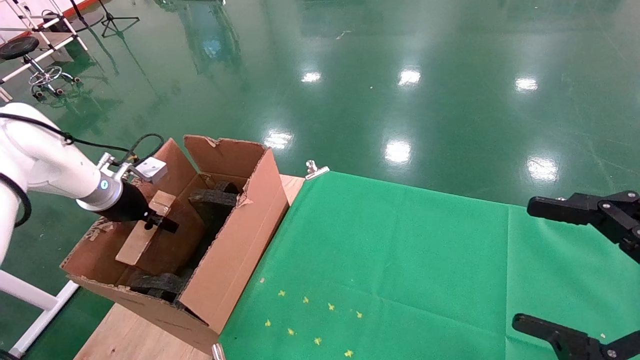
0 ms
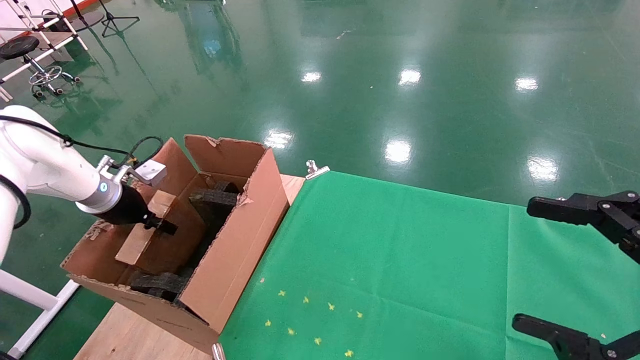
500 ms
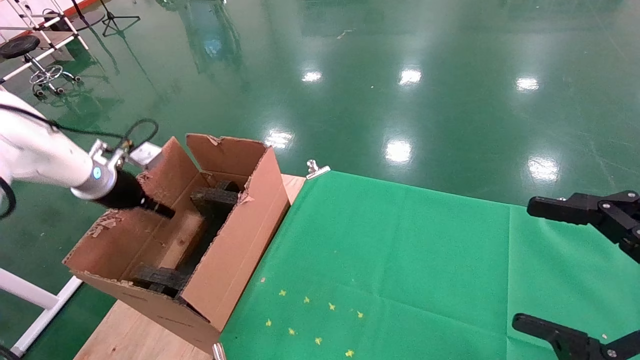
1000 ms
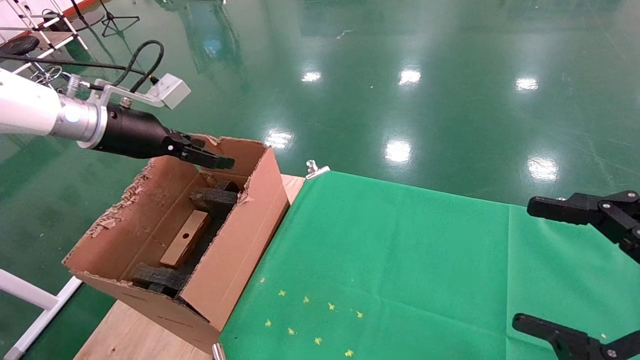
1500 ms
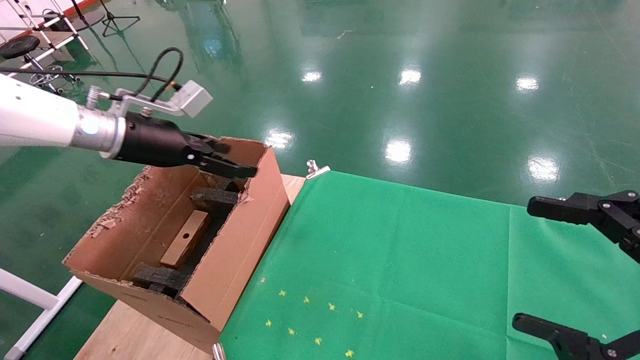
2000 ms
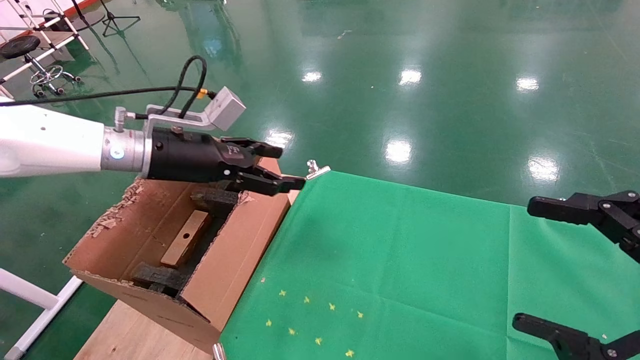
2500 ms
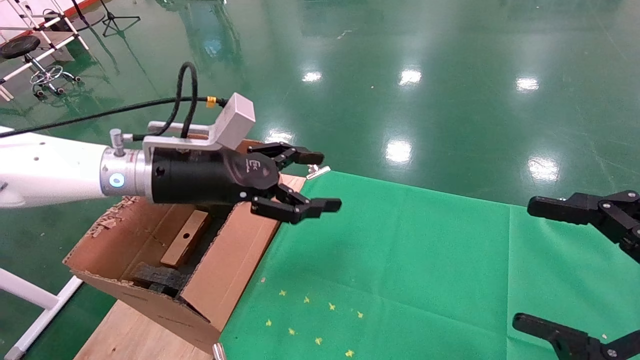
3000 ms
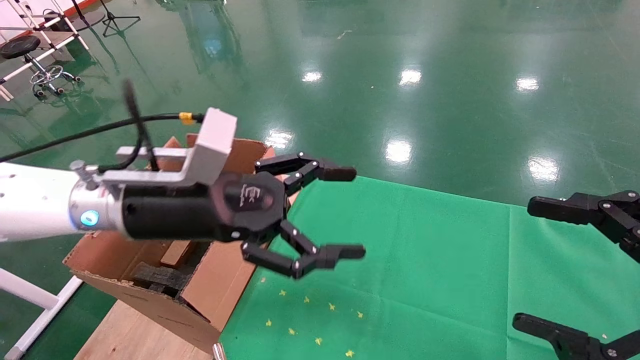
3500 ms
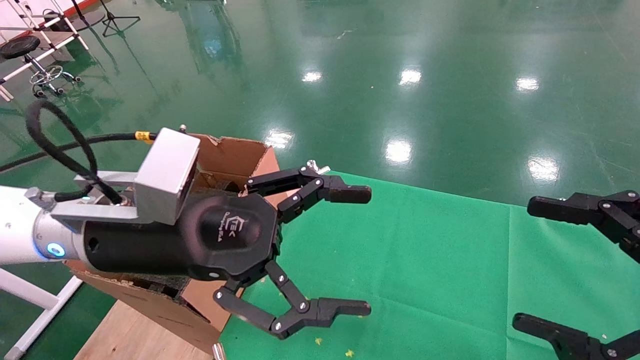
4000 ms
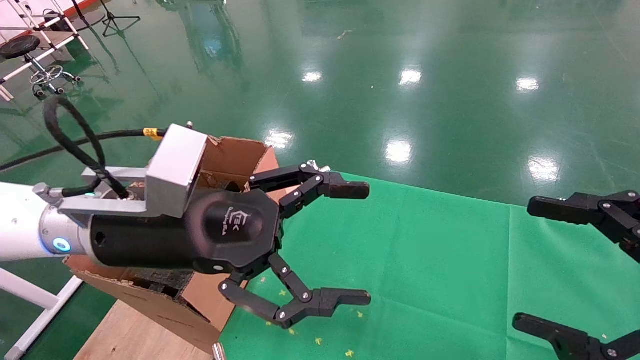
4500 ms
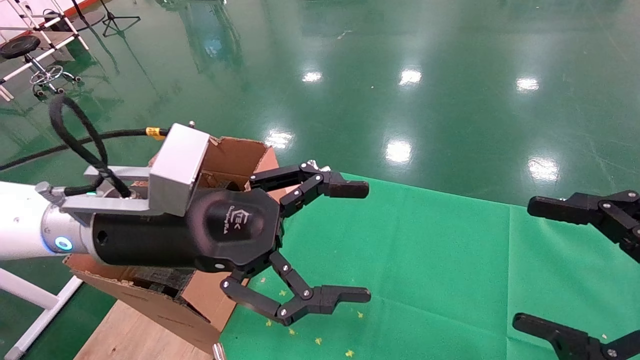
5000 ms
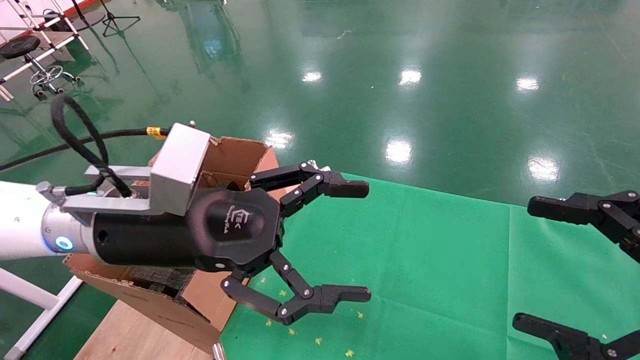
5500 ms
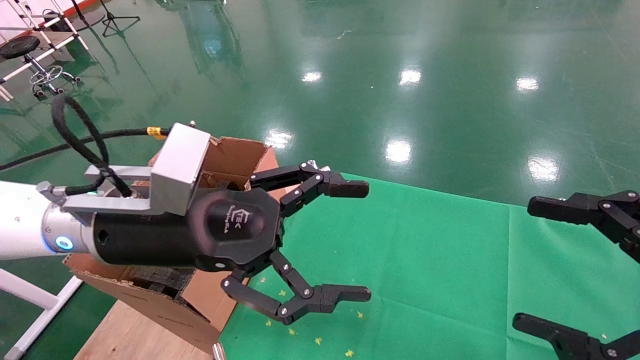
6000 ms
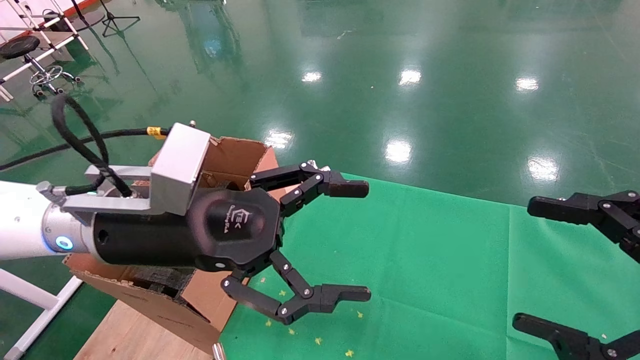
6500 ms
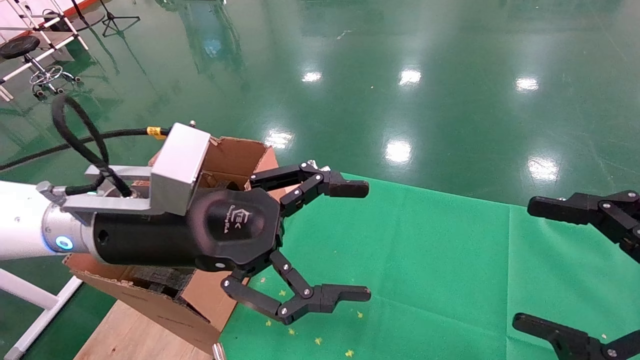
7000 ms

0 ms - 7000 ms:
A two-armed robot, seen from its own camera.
Task of the whole recording: using a robotic arm to pick up a cardboard box and palace it the carton.
0 ms - 2000 ms: The left gripper is displaced upward and to the right by about 15 cm, and opens its fingers.
2000 ms - 3500 ms: The left gripper goes approximately 20 cm to the right and backward.
3500 ms - 5000 ms: The grippers make only small movements.
5000 ms - 7000 ms: Both grippers stay put.

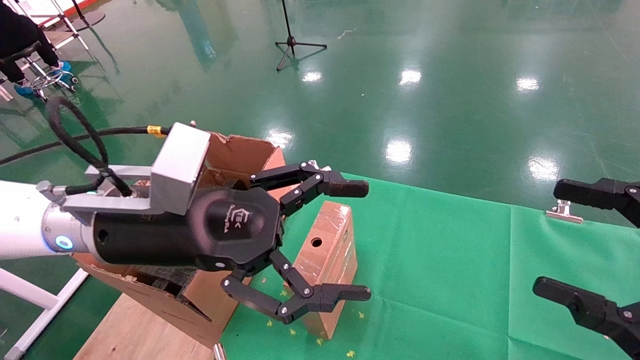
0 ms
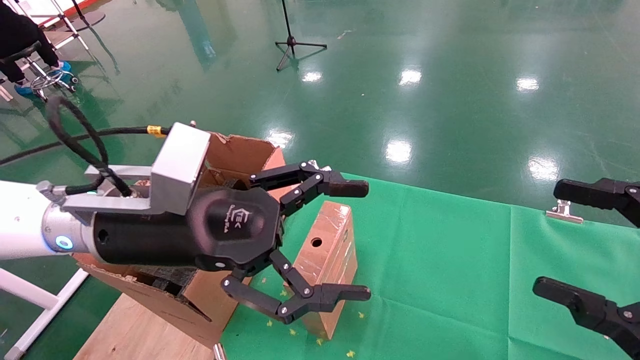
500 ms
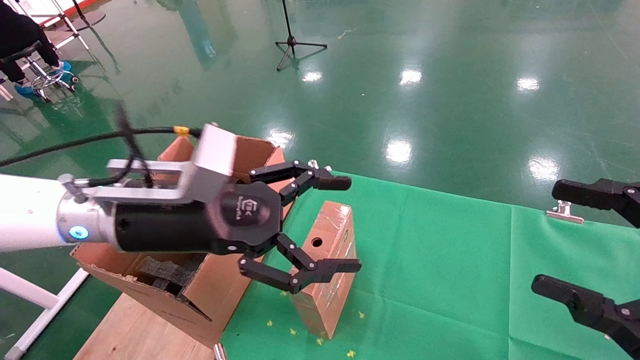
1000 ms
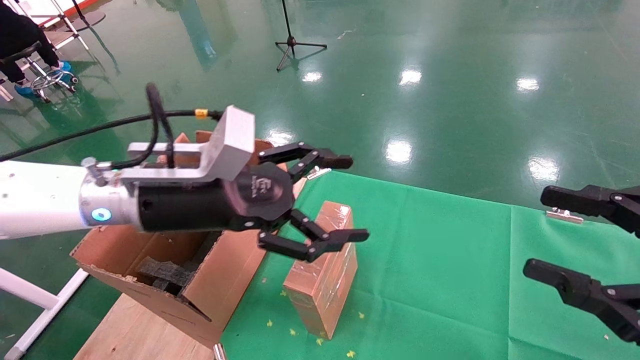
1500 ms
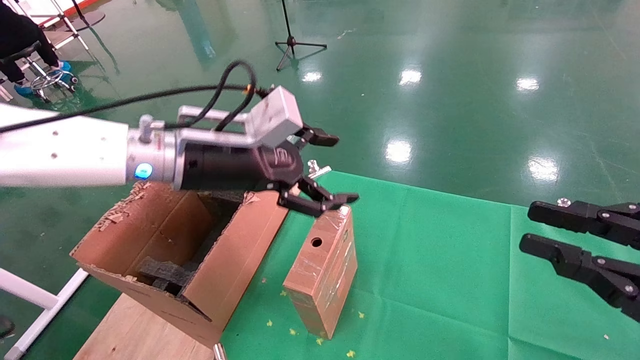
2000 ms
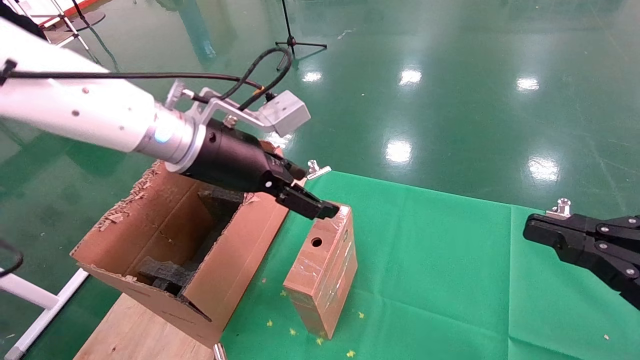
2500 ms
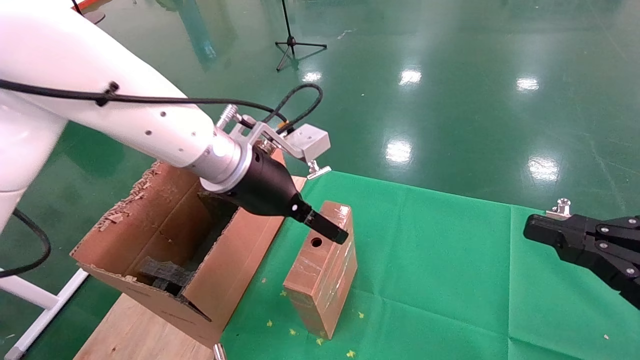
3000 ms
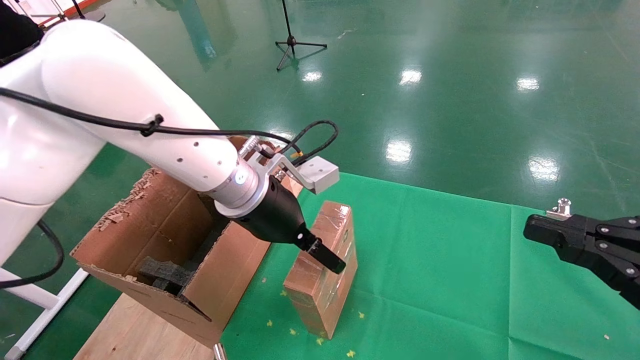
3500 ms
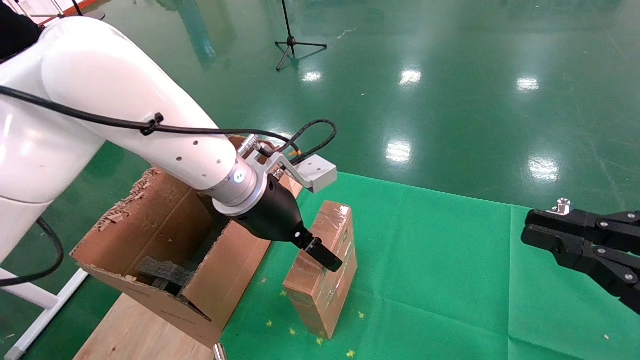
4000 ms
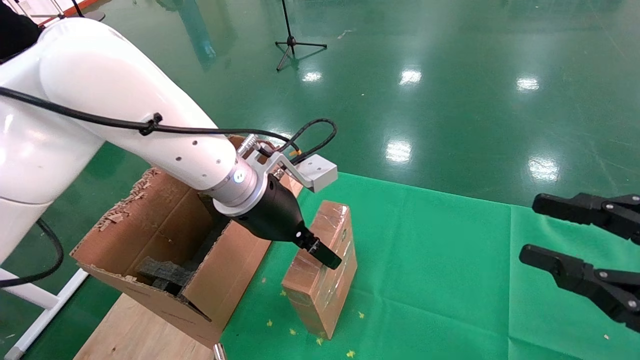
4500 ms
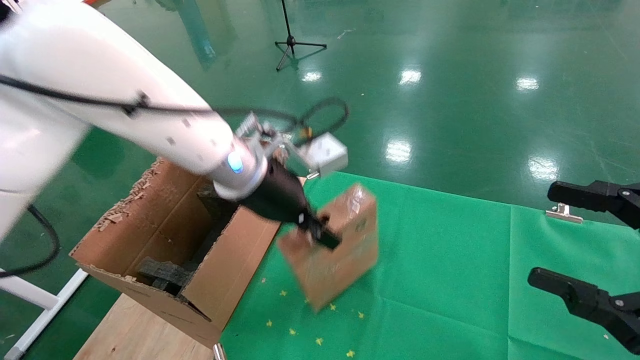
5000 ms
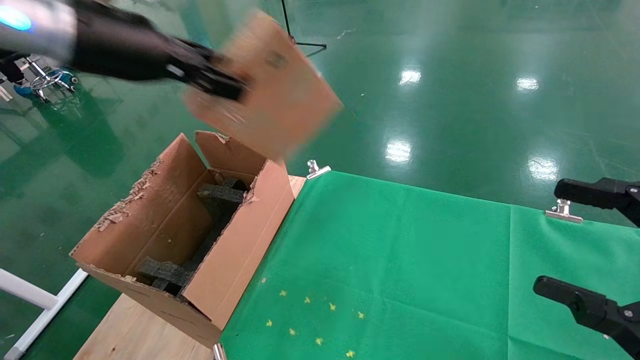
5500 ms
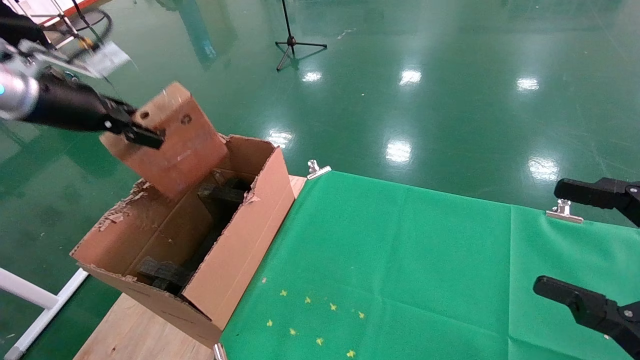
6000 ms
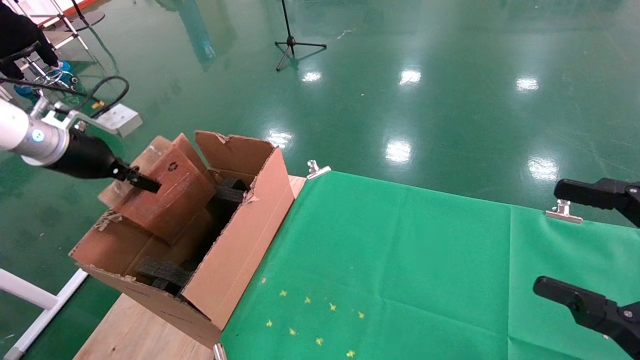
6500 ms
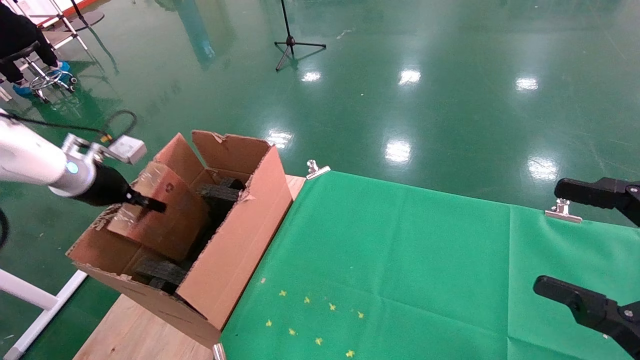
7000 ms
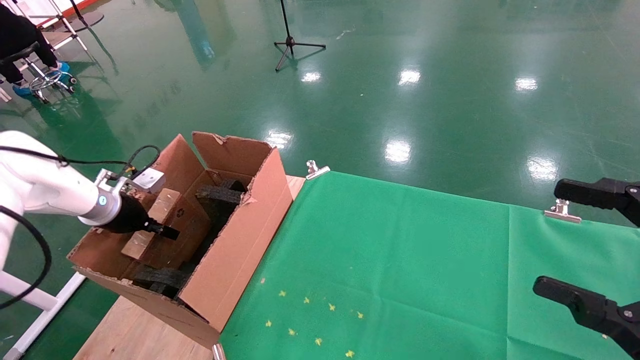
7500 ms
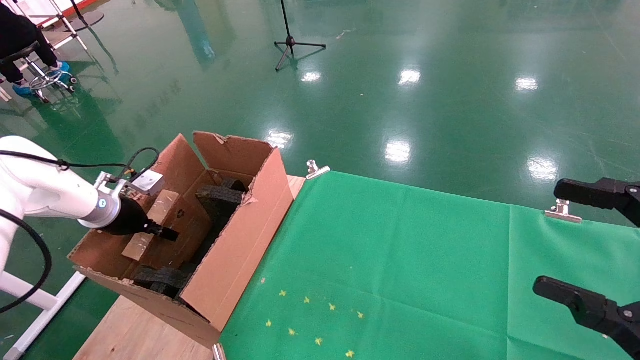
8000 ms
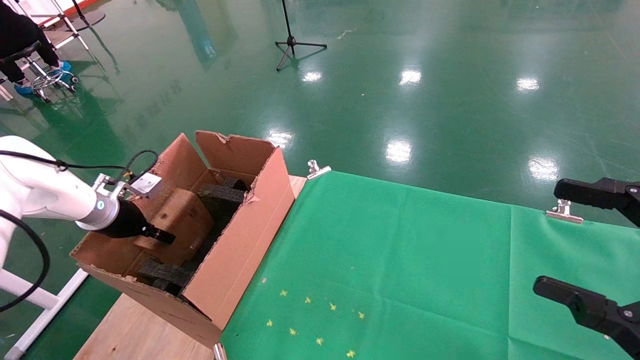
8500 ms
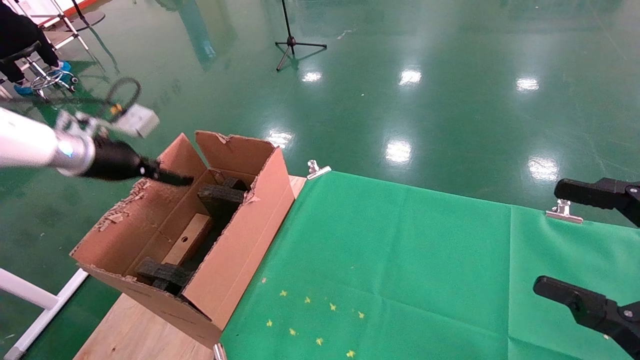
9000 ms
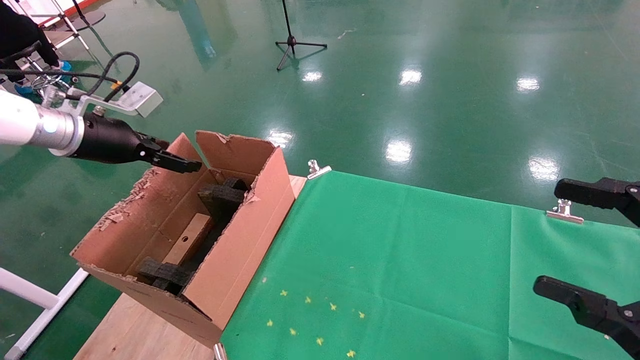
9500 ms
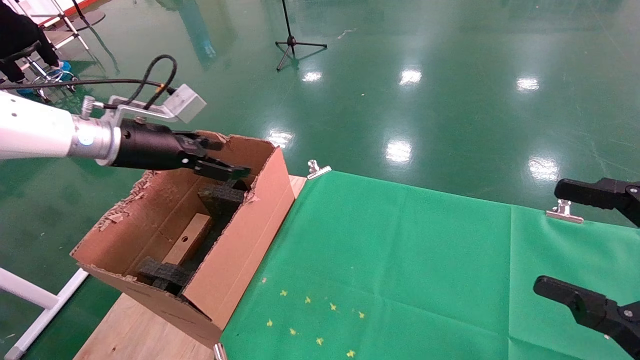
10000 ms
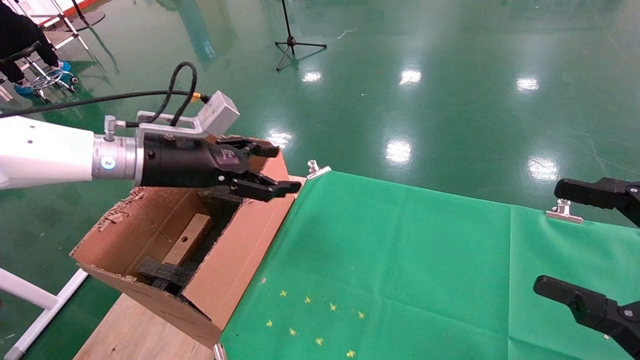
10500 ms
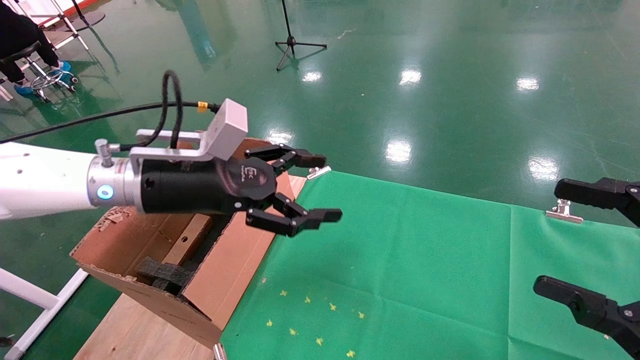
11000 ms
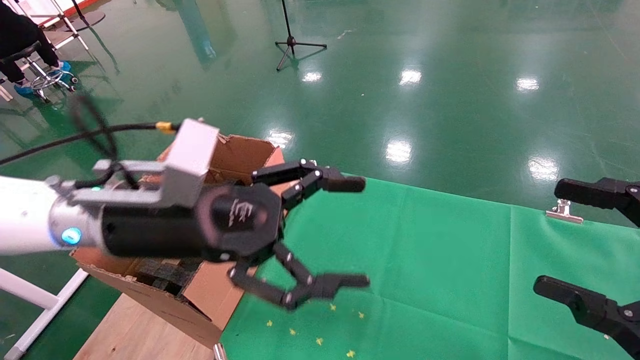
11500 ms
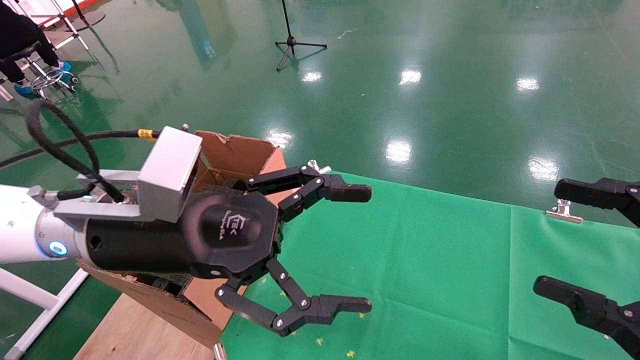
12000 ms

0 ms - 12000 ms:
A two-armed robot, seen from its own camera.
Task of the whole recording: using a robotic arm to pick up a cardboard box and palace it the carton.
Step, 1500 ms - 4500 ms: Pick up the mouse and the power cord paper box.
Step, 5000 ms - 8500 ms: Place the mouse and the power cord paper box into the container.
0 ms - 2000 ms: The left gripper goes about 10 cm forward, while the right gripper closes up.
2000 ms - 4000 ms: The left gripper is displaced to the right by some 5 cm.
4000 ms - 6000 ms: The left gripper goes approximately 30 cm to the left, and closes. Meanwhile the right gripper opens its fingers.
6000 ms - 8000 ms: The left gripper goes some 20 cm downward.
8000 ms - 10000 ms: The left gripper shifts some 15 cm upward and to the right, and opens.
10000 ms - 12000 ms: The left gripper moves to the right and backward, roughly 20 cm.

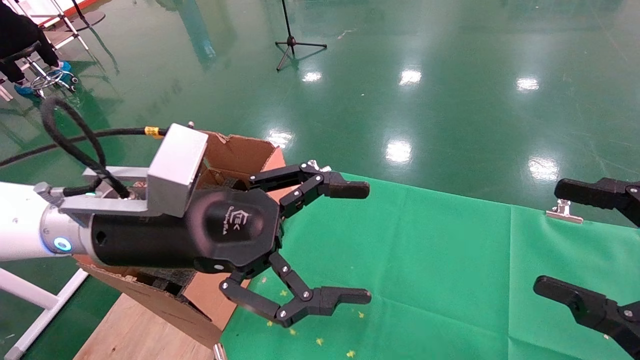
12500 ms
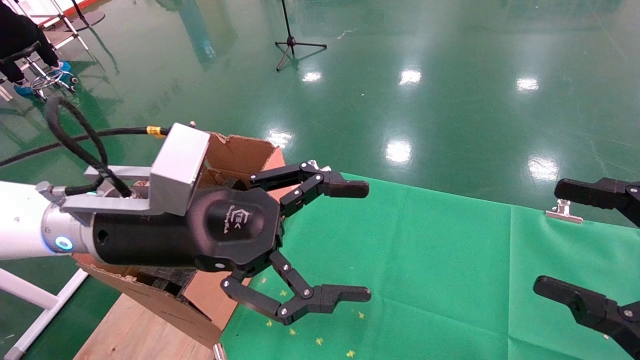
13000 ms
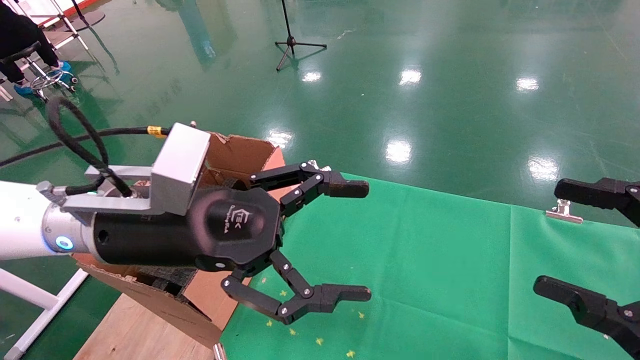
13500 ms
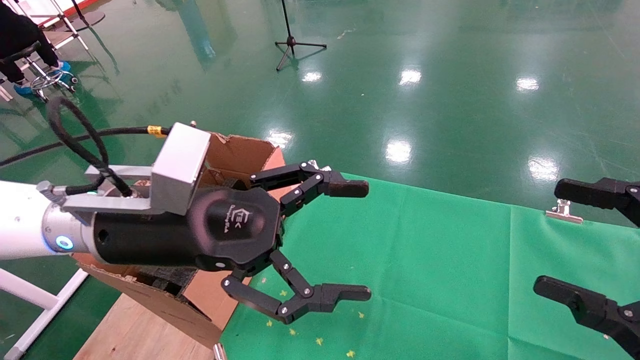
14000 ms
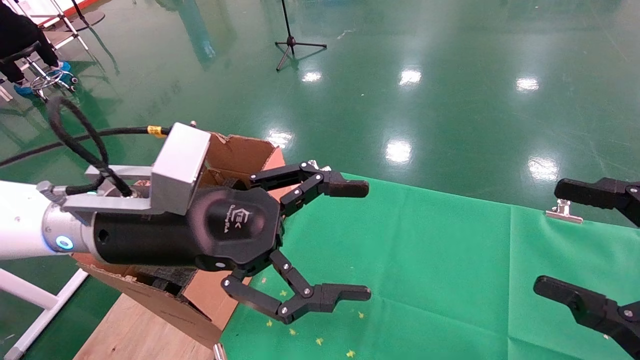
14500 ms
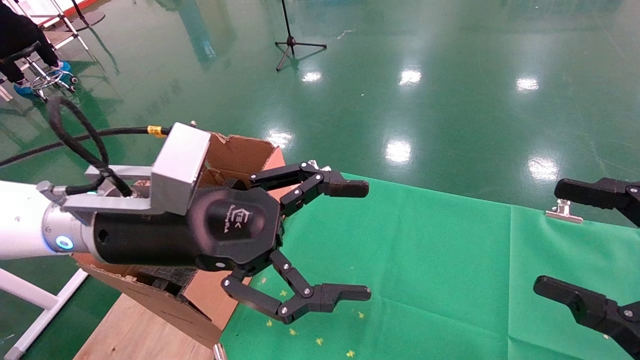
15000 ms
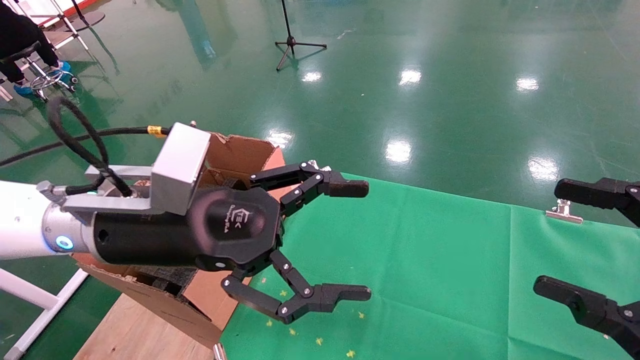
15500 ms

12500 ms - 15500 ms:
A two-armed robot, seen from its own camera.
Task of the whole recording: using a robotic arm to pick up a cardboard box and palace it the carton.
12500 ms - 15500 ms: The two grippers keep their place.
